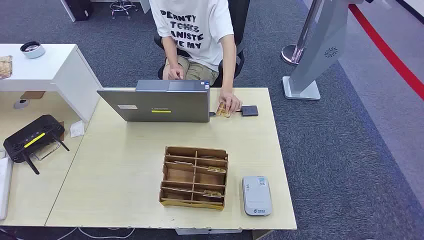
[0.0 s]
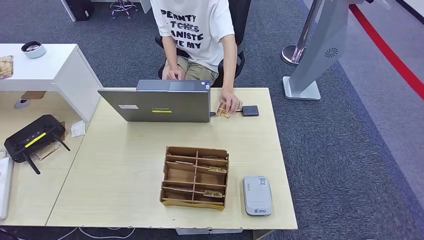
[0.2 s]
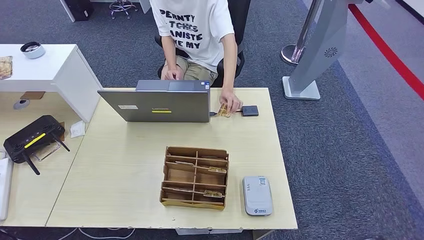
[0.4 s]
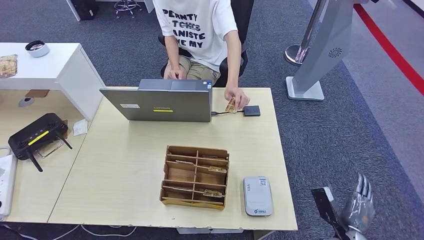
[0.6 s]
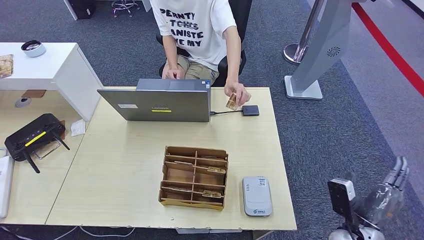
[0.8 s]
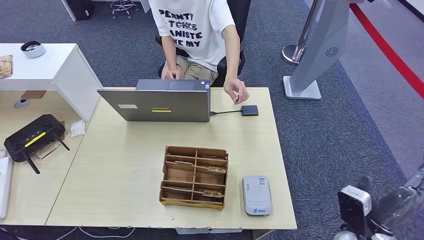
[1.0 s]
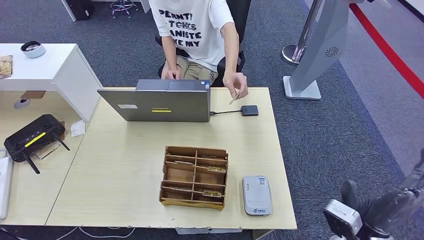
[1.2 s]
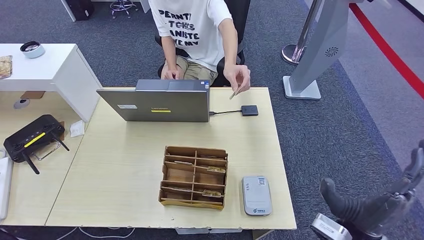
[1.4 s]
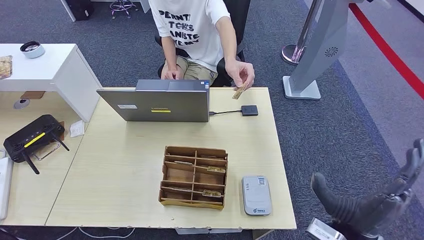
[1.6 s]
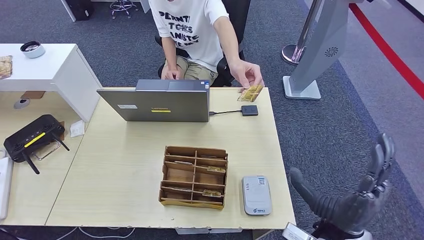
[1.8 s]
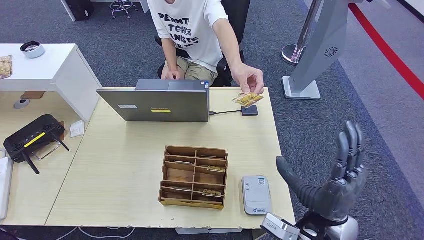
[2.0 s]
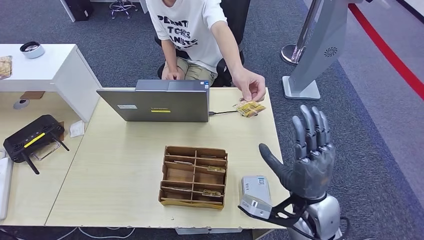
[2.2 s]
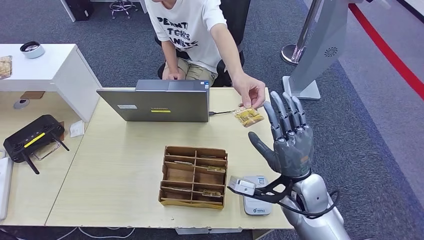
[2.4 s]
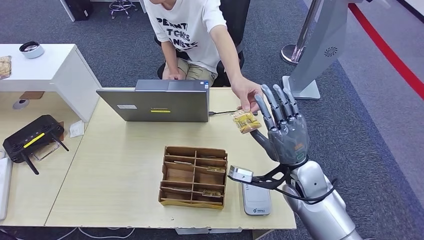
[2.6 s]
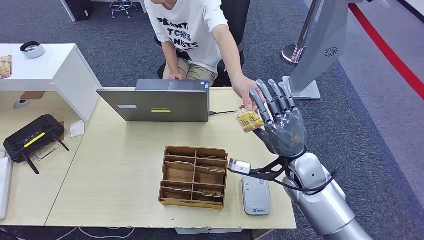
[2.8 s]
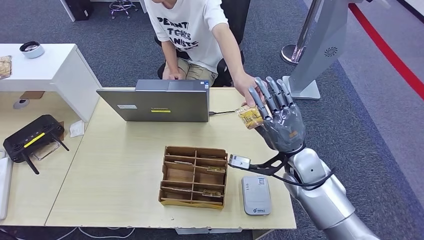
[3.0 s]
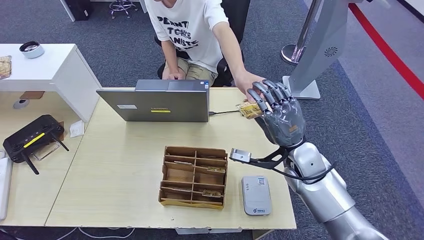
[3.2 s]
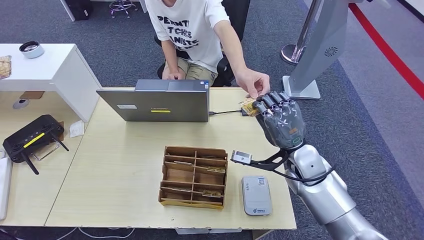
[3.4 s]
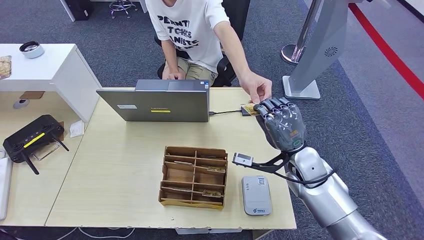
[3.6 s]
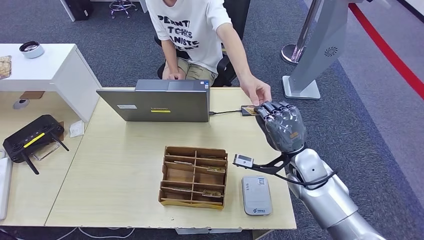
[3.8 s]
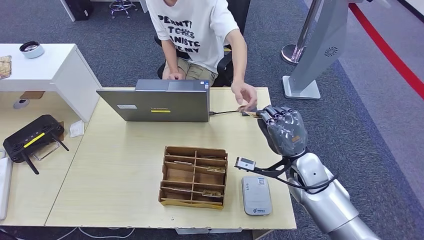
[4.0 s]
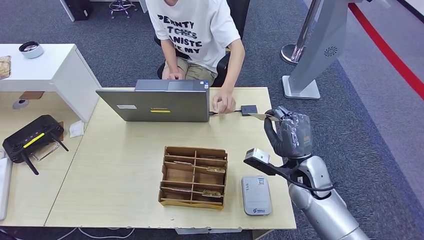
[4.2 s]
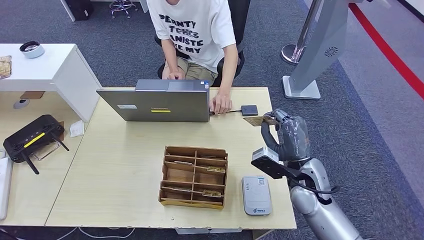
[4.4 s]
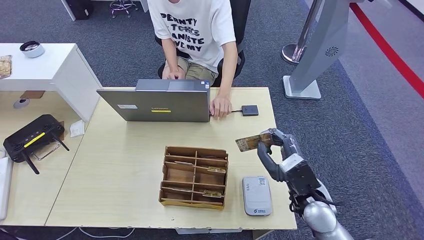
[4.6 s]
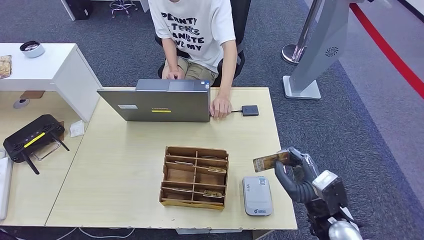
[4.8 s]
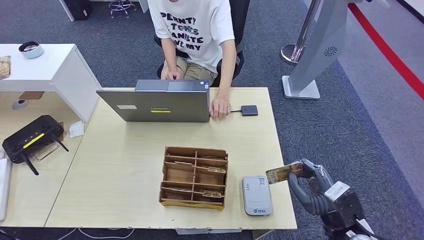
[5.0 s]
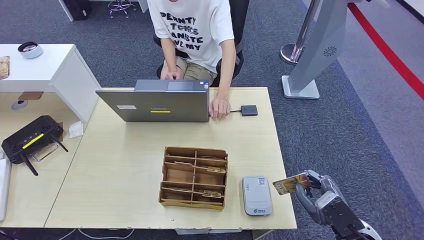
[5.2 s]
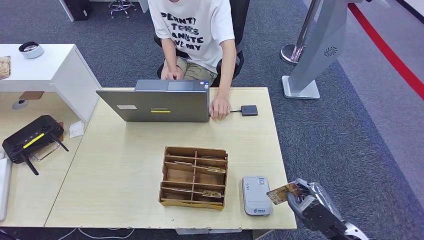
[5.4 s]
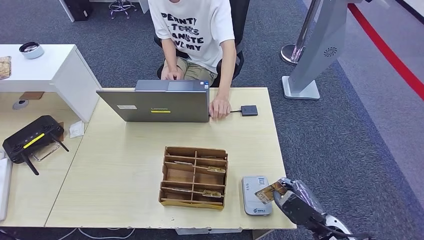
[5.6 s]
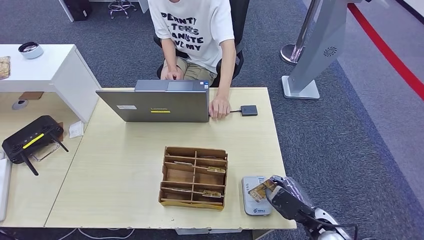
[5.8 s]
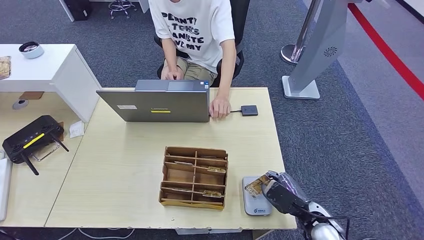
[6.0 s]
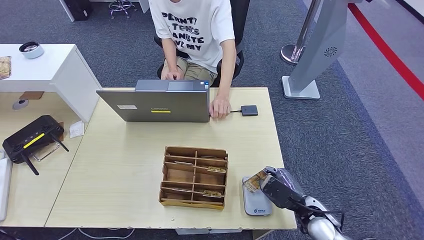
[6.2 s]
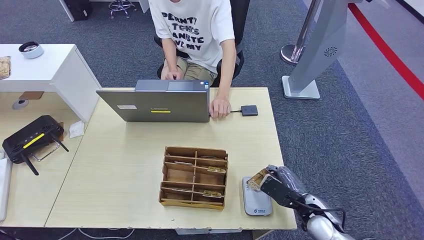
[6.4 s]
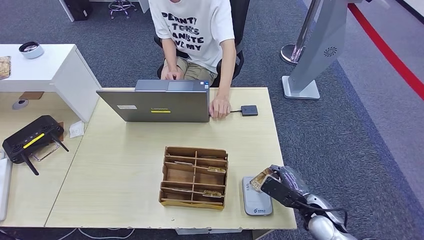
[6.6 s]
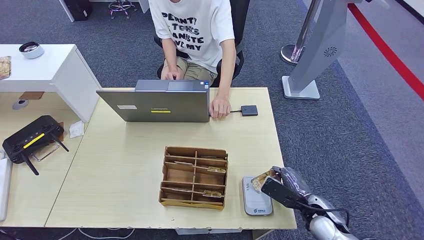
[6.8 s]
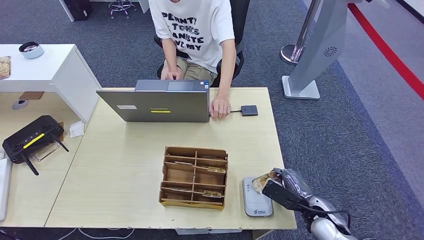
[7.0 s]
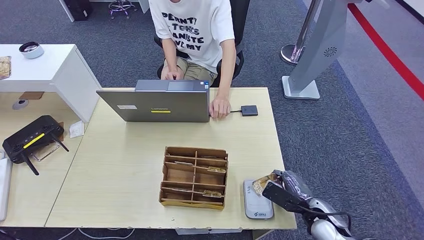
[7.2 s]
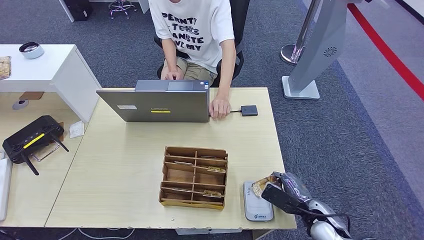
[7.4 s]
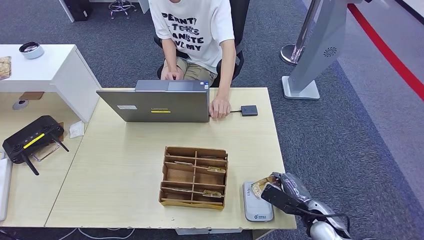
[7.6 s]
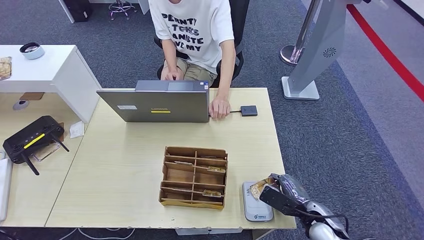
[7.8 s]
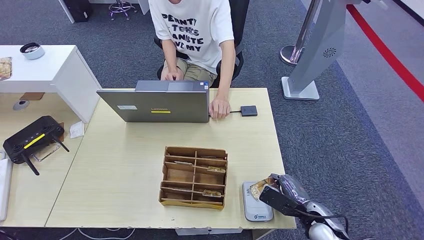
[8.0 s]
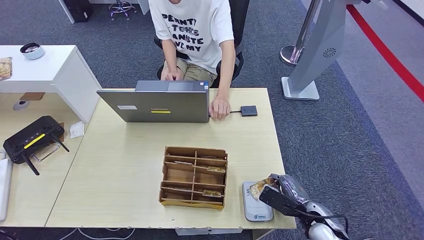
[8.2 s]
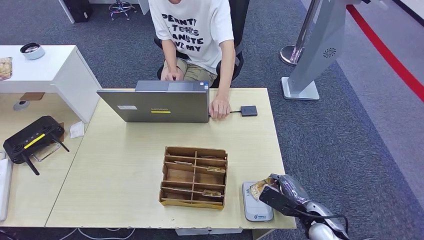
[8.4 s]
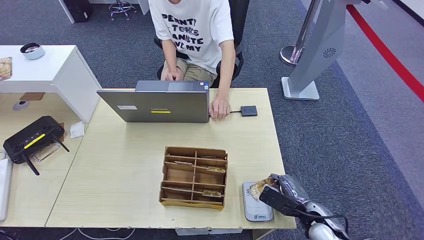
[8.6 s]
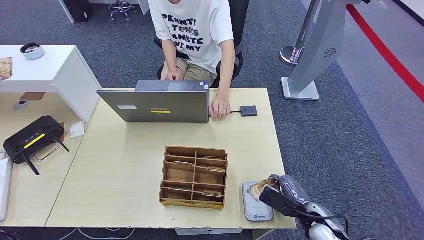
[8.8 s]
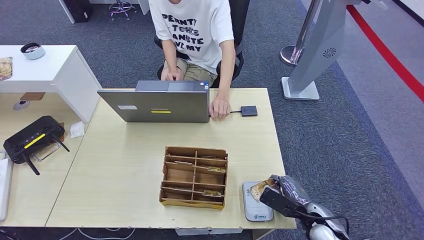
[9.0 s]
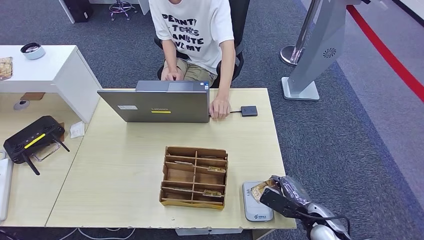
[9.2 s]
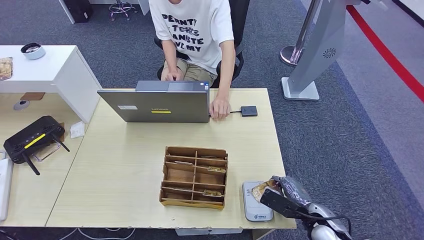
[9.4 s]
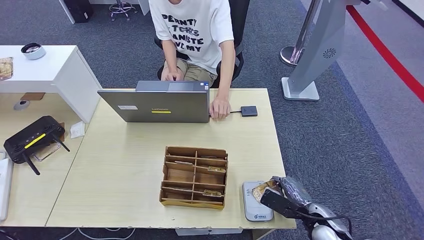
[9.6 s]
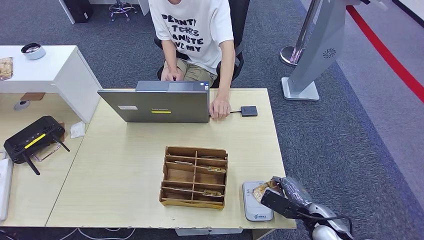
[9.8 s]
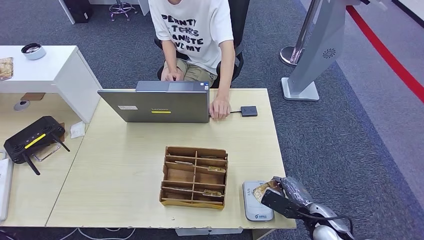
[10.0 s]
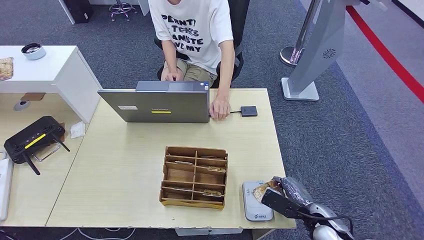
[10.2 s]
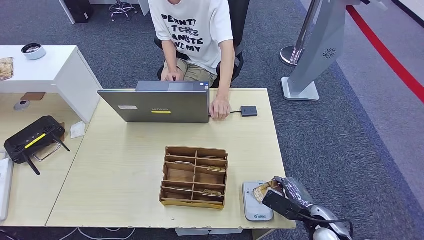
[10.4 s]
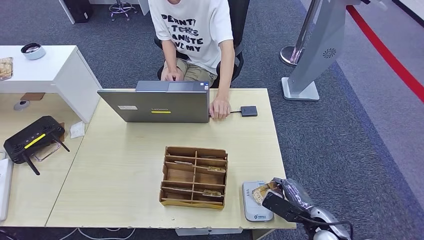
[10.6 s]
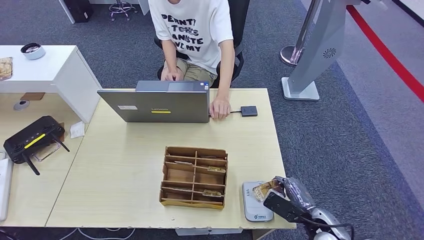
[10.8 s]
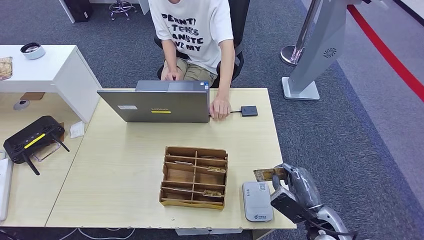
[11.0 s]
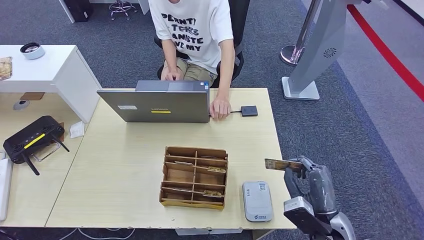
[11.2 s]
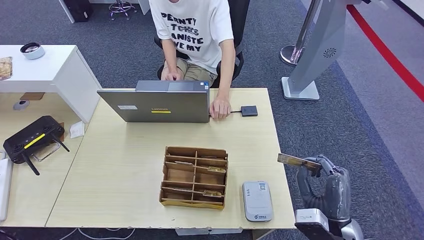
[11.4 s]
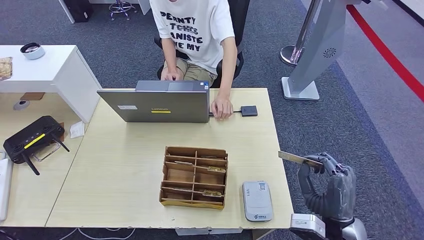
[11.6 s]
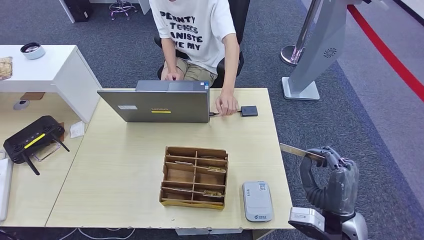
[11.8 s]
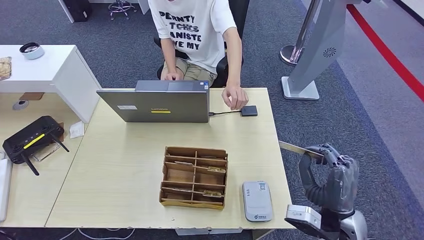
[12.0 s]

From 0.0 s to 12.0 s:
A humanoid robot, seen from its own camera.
Step, from 0.0 s to 4.2 s: Take the ID card from the person's hand.
Step, from 4.4 s to 6.8 s: Place the ID card on the card reader.
From 1.6 s to 3.0 s: The right hand shifts about 15 cm forward.
From 4.4 s to 6.0 s: The right hand goes roughly 15 cm downward and backward.
From 6.0 s to 9.0 s: There are only small adjustments of the hands.
From 9.0 s to 10.4 s: There are only small adjustments of the hands.
From 10.4 s to 12.0 s: The right hand travels upward by approximately 10 cm.

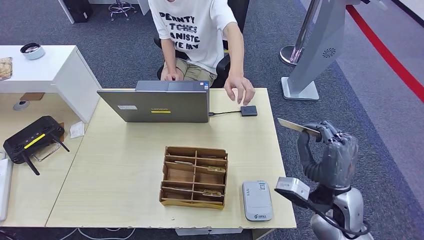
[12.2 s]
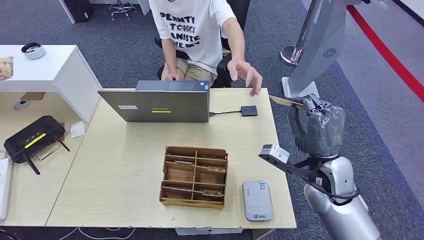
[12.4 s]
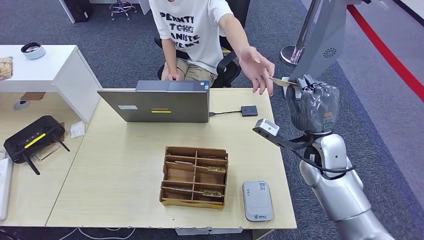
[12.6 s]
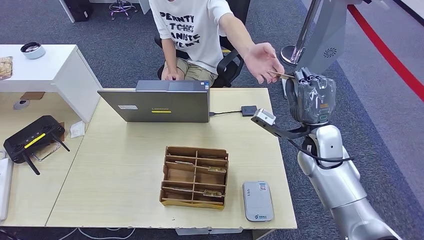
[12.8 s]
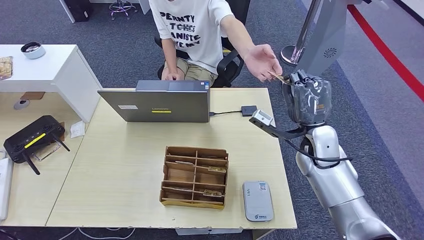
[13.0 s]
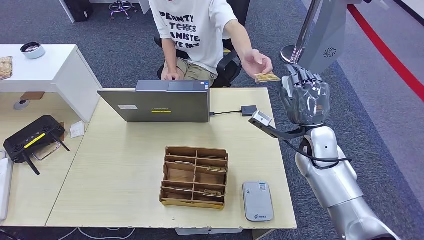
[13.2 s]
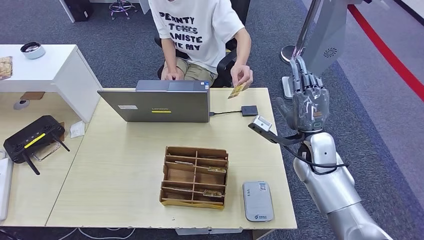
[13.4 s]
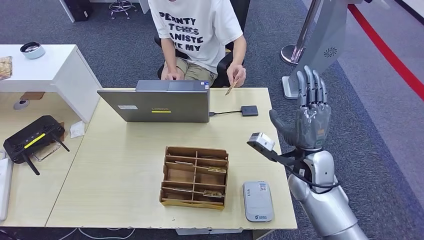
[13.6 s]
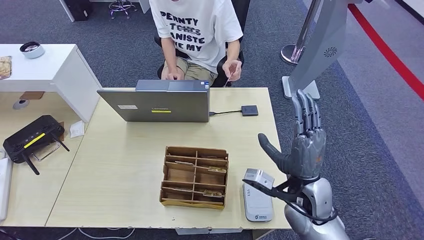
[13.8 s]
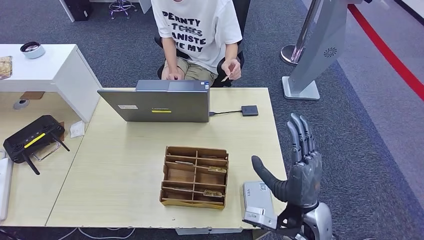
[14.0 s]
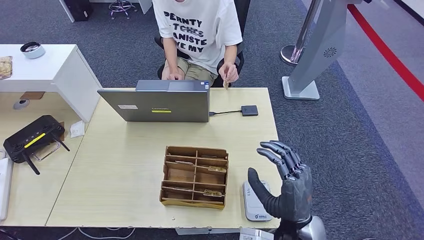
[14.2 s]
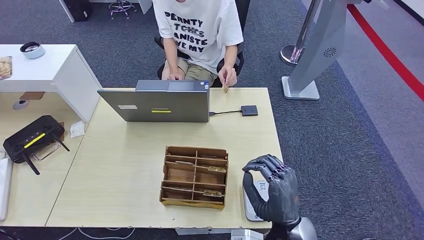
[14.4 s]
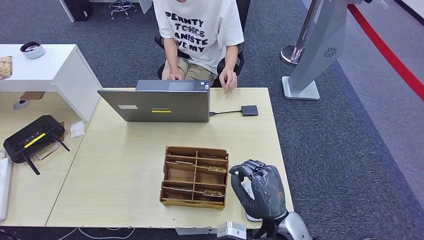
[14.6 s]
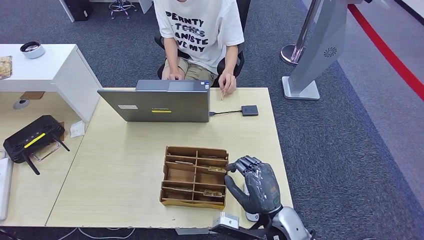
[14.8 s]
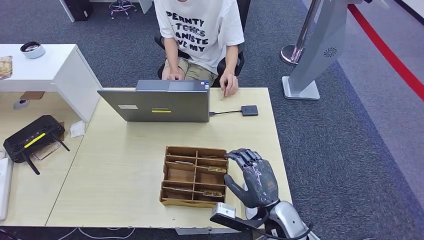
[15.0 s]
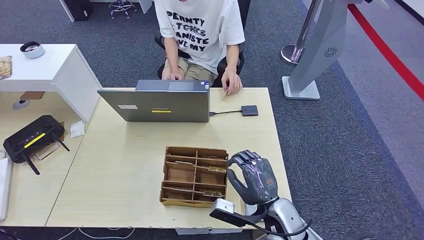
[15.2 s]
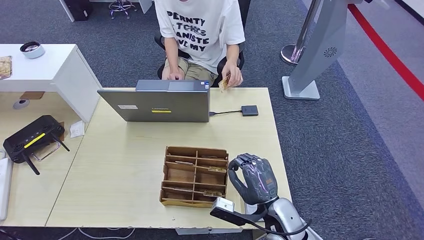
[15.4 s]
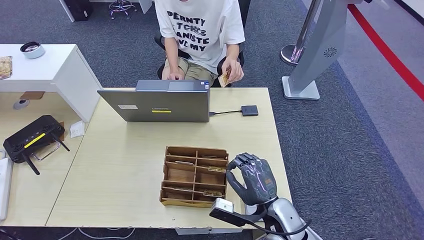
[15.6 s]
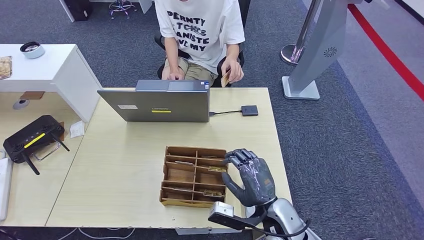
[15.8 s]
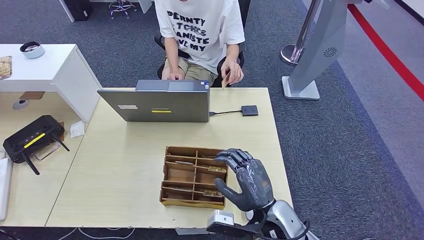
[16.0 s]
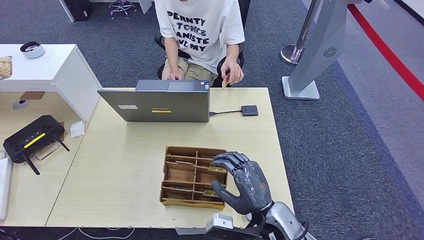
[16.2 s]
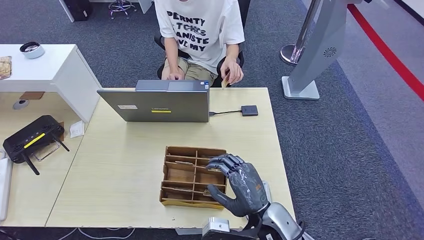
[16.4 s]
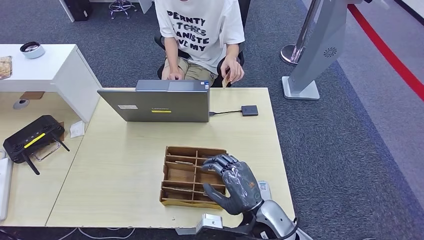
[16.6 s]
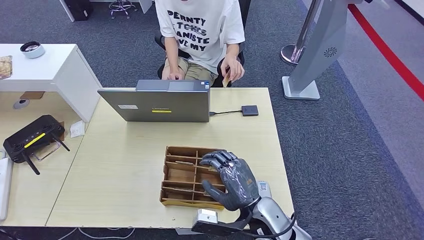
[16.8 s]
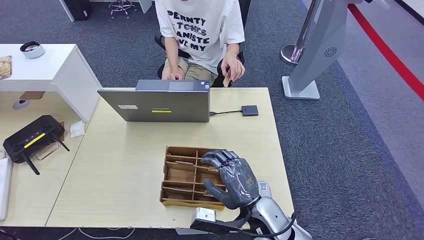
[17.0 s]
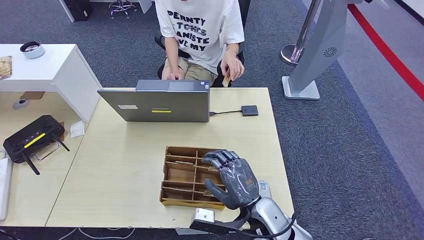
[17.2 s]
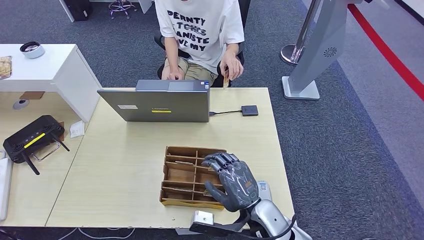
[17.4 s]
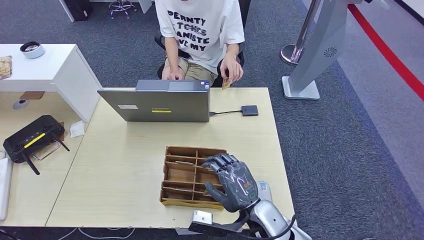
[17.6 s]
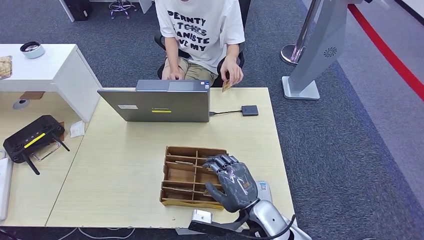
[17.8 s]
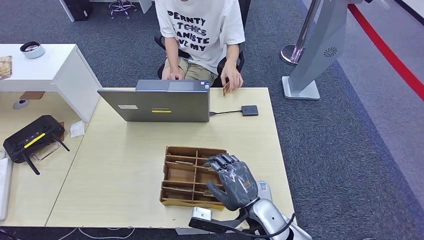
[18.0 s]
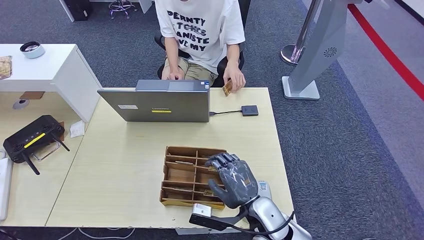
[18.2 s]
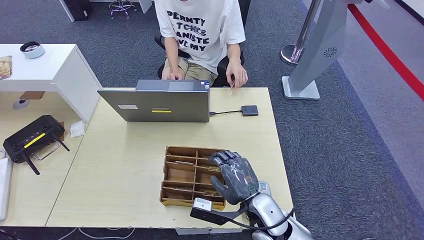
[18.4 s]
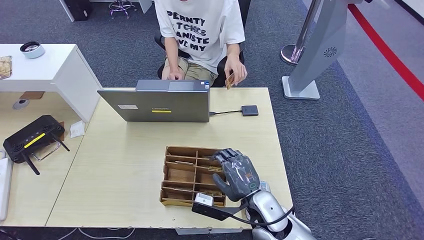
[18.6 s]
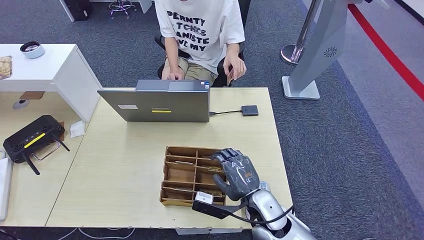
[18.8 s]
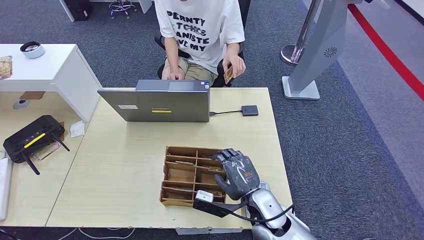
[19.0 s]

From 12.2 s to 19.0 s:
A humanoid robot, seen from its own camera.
From 12.2 s to 13.6 s: The right hand is displaced forward by roughly 10 cm.
From 13.6 s to 15.0 s: The right hand is displaced backward, to the left and downward by some 15 cm.
From 15.0 s to 19.0 s: The hands make only small movements.
